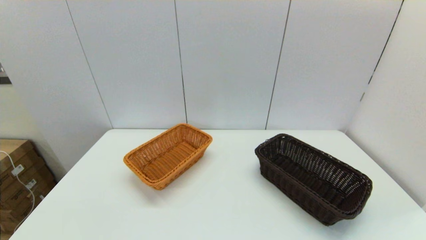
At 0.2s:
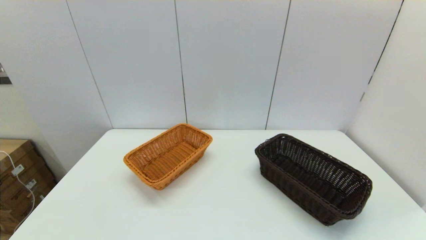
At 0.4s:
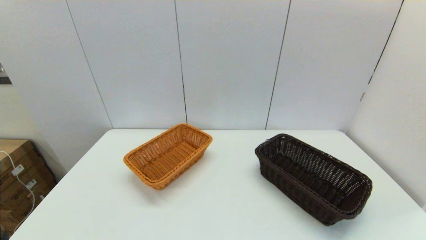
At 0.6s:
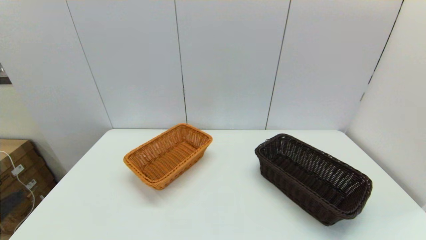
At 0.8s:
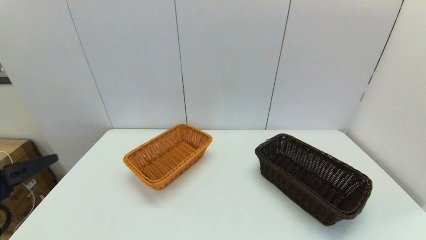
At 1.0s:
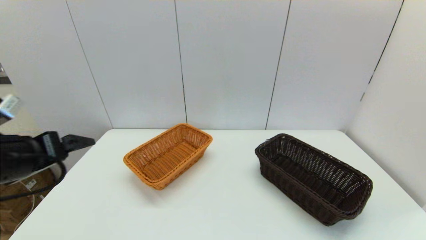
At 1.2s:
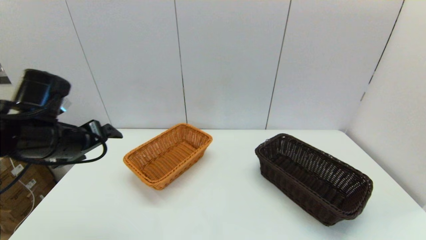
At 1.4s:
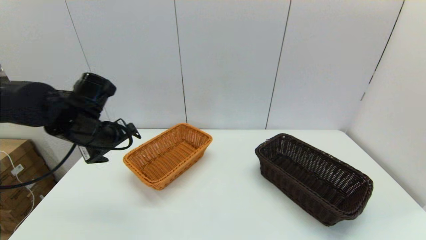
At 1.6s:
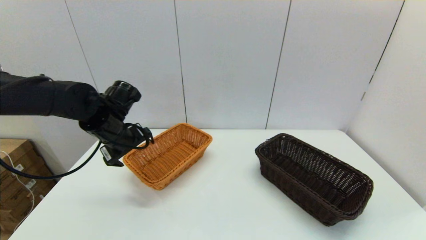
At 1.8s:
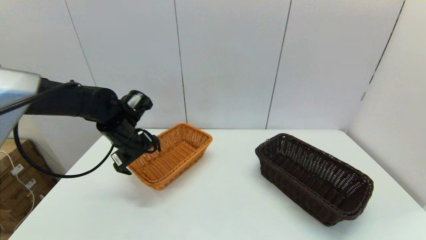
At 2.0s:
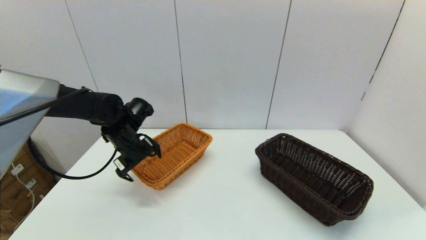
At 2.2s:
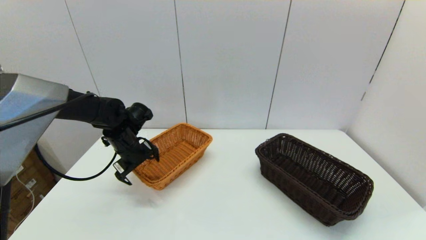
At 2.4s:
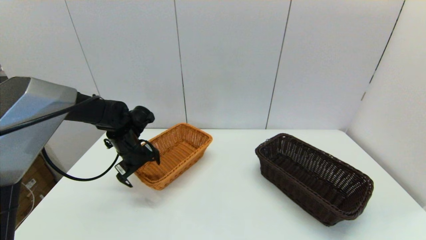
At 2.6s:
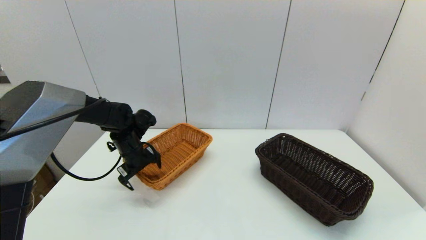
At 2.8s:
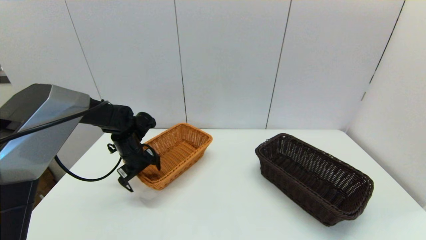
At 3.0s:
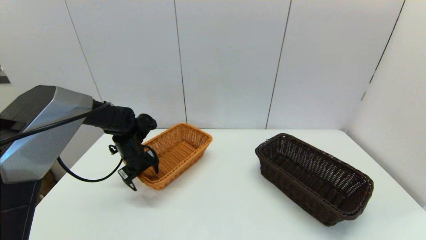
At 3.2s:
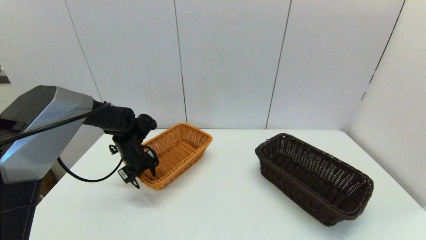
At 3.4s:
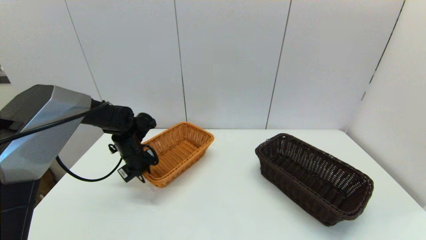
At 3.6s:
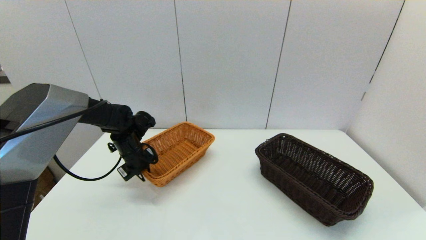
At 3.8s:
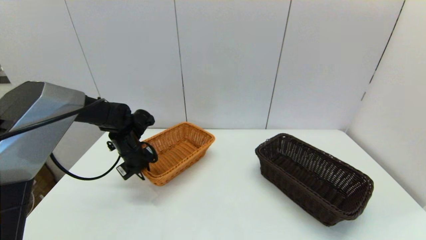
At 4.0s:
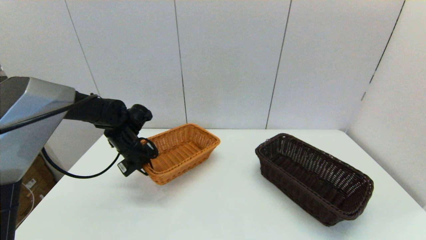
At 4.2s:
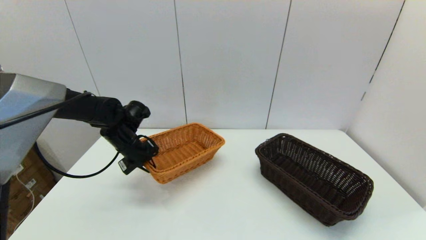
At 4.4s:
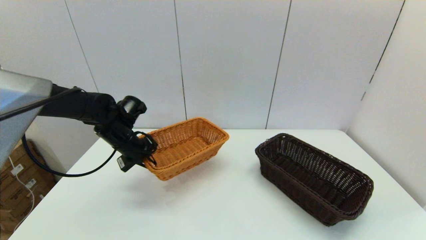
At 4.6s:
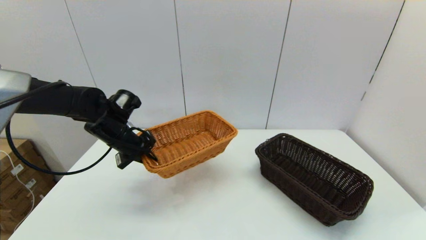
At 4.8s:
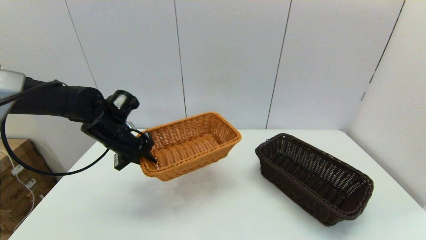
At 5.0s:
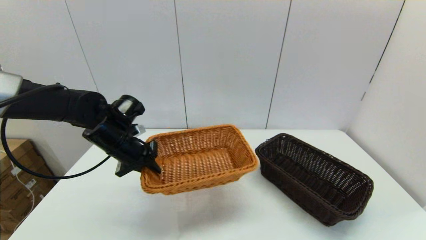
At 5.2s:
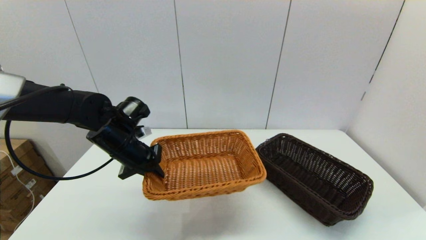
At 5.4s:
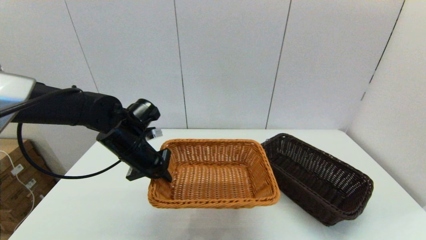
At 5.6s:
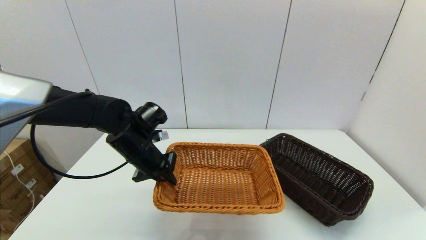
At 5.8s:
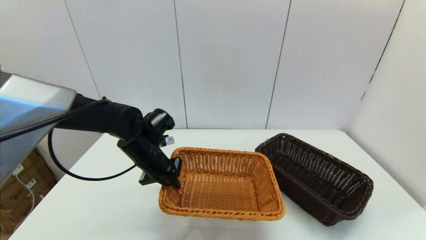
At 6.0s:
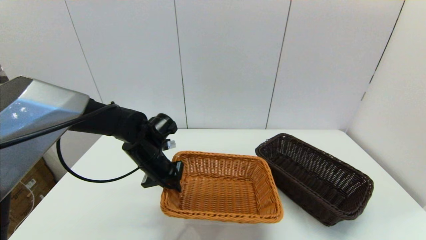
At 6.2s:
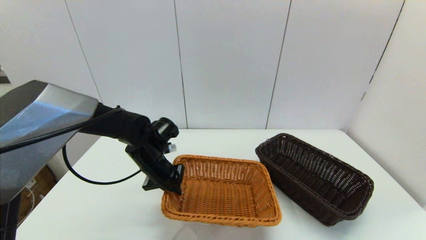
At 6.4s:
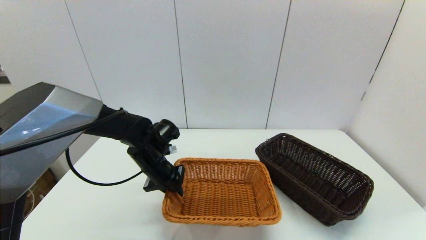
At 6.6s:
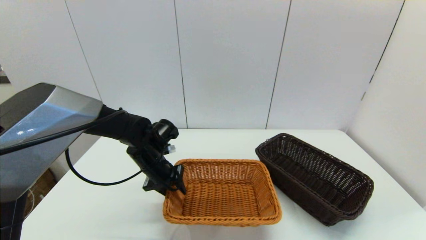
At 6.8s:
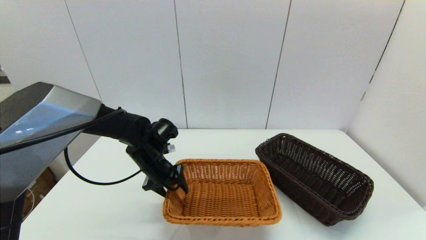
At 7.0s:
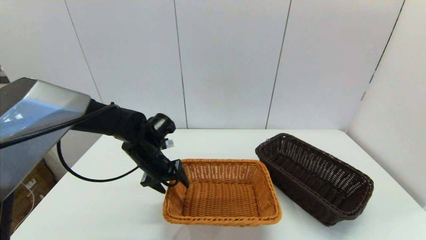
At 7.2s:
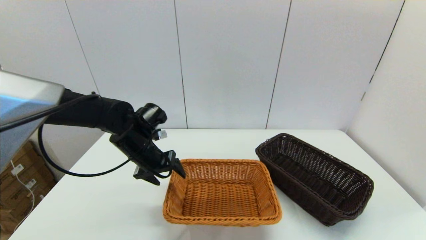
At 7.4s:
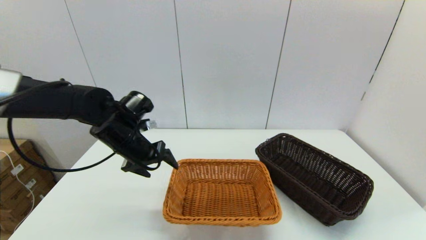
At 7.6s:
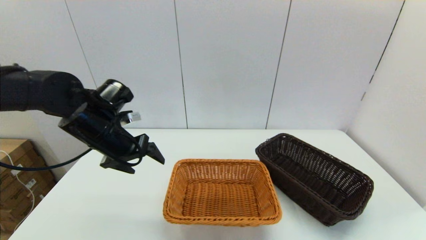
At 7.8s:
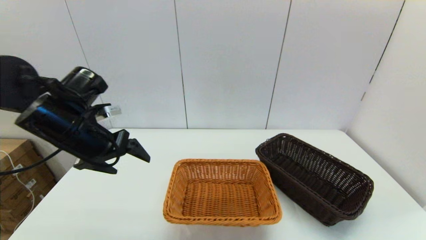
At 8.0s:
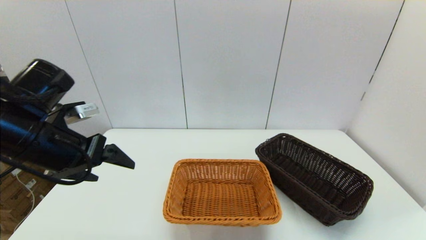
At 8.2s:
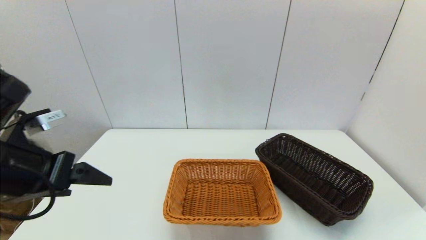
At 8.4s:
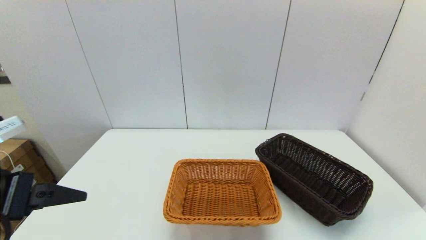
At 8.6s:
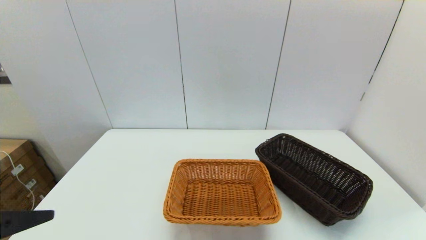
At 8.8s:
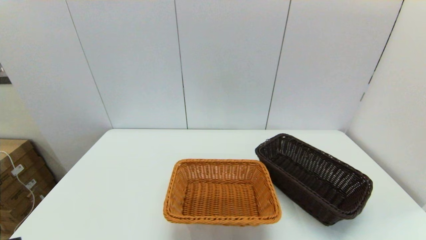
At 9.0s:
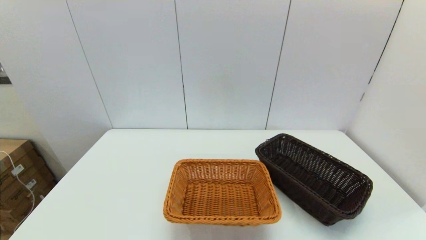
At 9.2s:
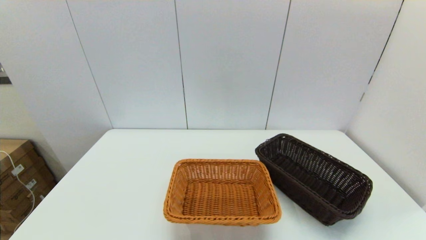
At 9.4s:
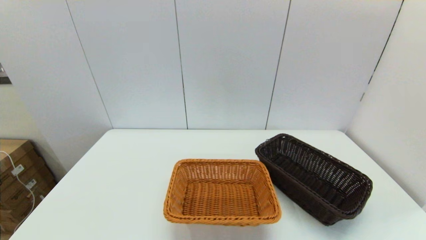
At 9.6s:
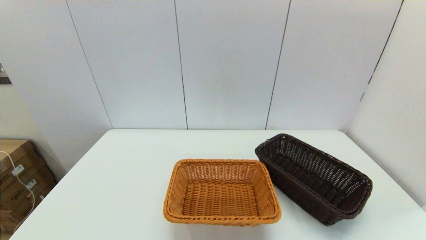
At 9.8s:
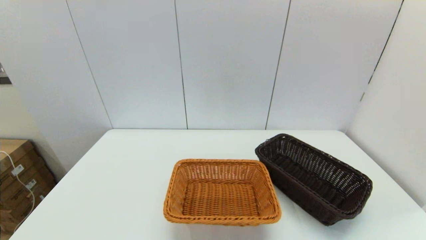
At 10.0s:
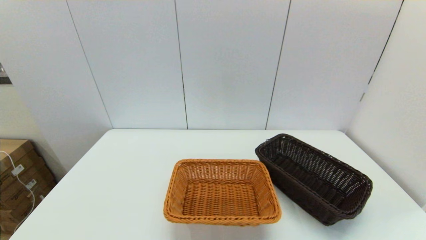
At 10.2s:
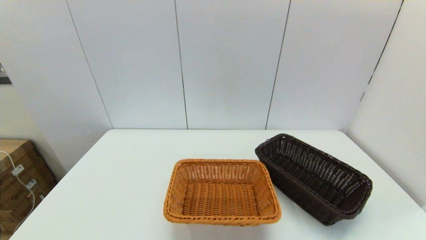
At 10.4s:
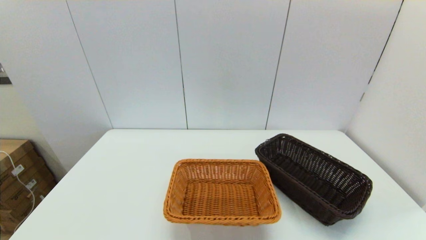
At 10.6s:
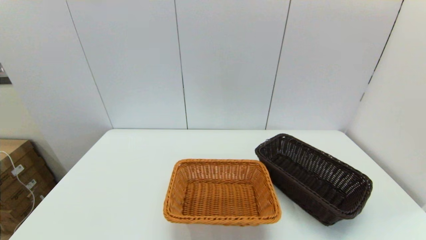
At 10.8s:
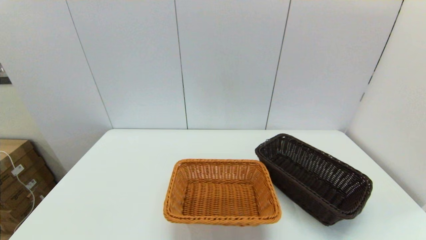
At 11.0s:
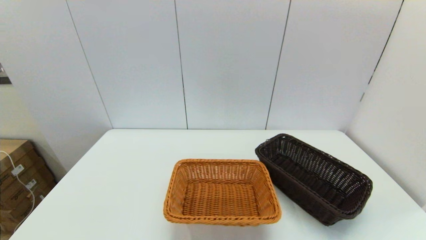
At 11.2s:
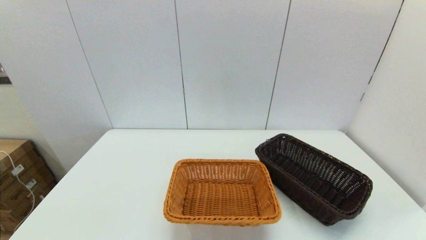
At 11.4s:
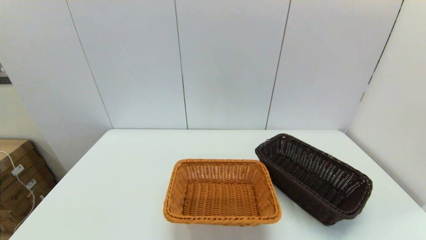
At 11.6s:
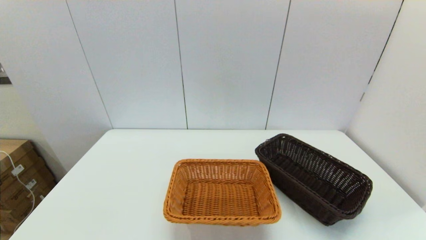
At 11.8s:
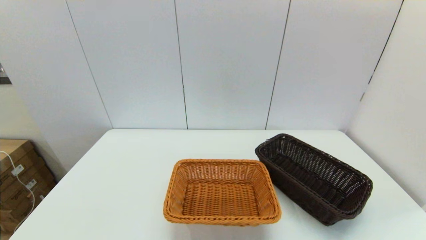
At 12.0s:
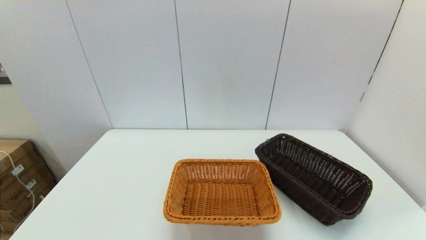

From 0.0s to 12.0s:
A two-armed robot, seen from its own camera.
Task of the whole recording: stack a basket on top of another basket.
Step, from 0.0s to 3.8s: Grasp the light basket with the left gripper.
Step, from 4.0s to 7.8s: Place the light basket on the middle of the table with the left gripper.
From 0.0s to 1.6s: The left gripper is displaced forward by approximately 35 cm.
From 1.6s to 3.0s: The left gripper shifts approximately 10 cm downward and forward.
From 3.0s to 4.4s: The left gripper shifts some 5 cm upward, and closes.
From 4.4s to 6.0s: The left gripper shifts roughly 10 cm to the right.
From 6.0s to 7.6s: The left gripper goes approximately 15 cm upward and to the left, and opens its fingers.
From 7.6s to 9.0s: The left gripper travels backward by roughly 30 cm.

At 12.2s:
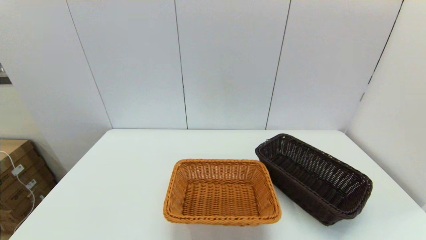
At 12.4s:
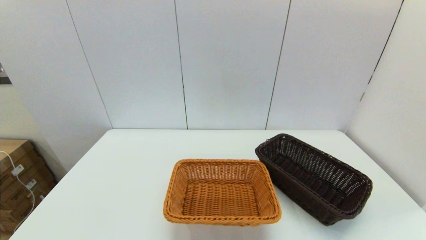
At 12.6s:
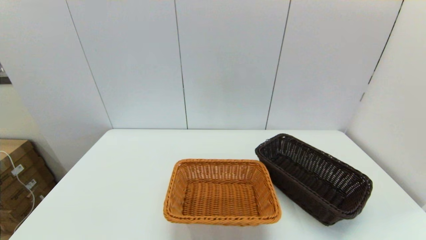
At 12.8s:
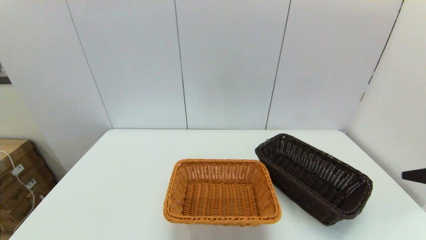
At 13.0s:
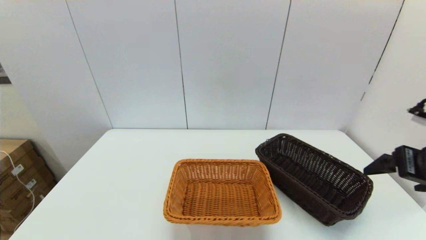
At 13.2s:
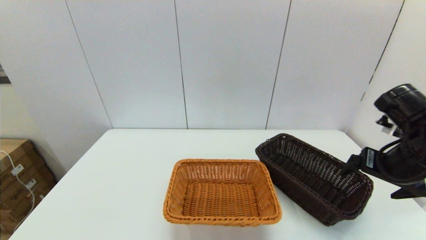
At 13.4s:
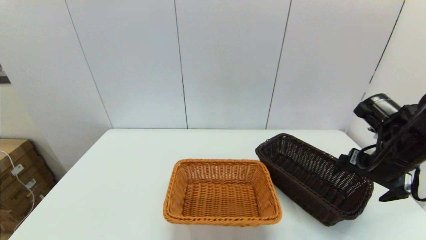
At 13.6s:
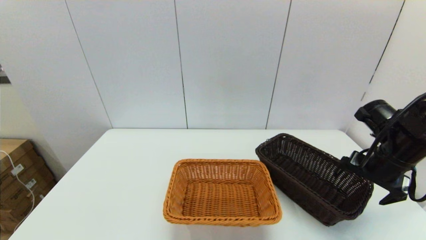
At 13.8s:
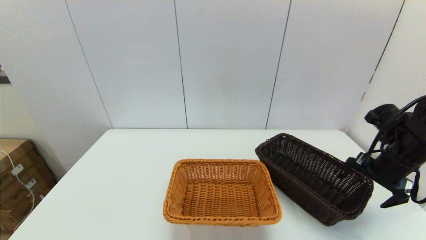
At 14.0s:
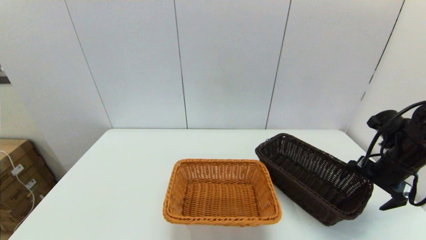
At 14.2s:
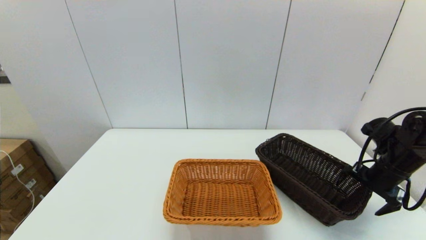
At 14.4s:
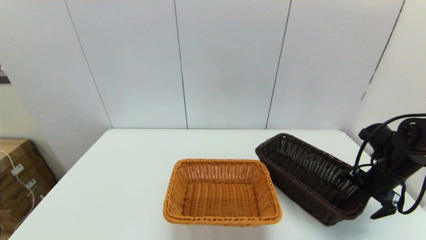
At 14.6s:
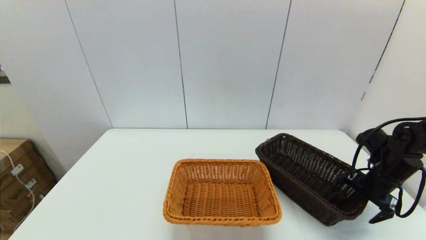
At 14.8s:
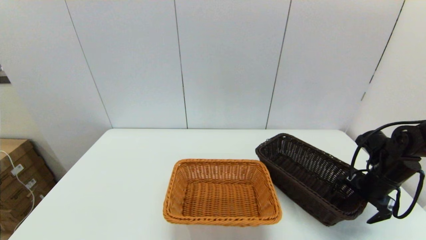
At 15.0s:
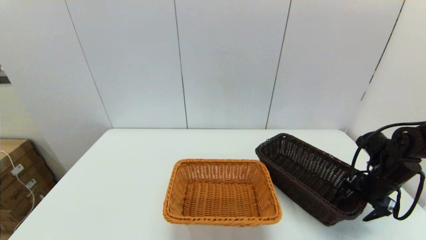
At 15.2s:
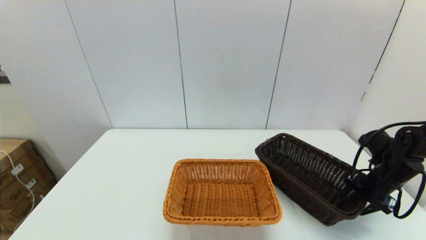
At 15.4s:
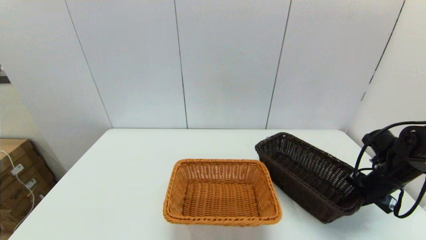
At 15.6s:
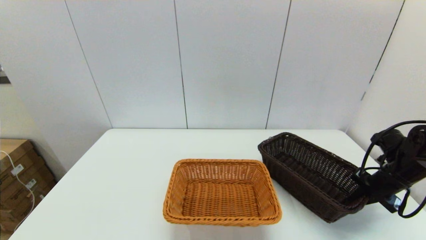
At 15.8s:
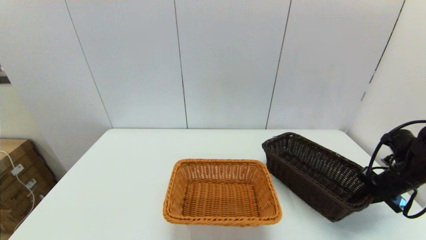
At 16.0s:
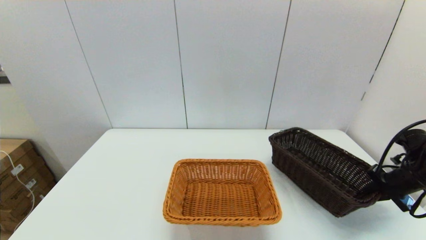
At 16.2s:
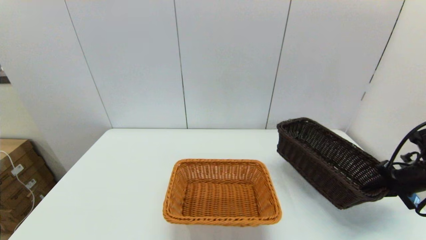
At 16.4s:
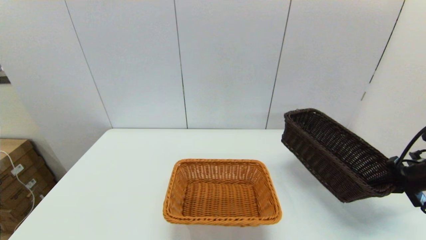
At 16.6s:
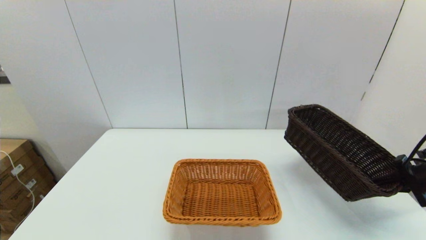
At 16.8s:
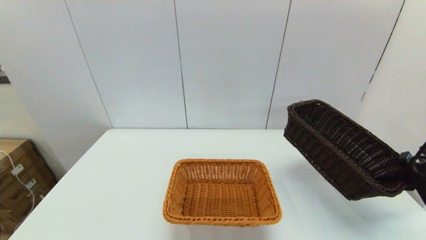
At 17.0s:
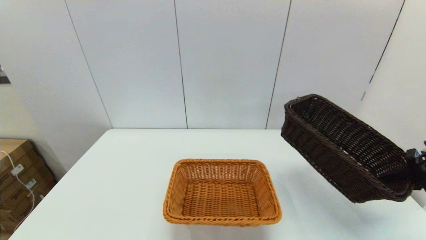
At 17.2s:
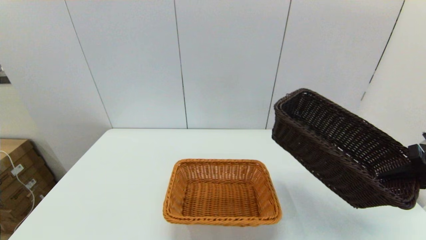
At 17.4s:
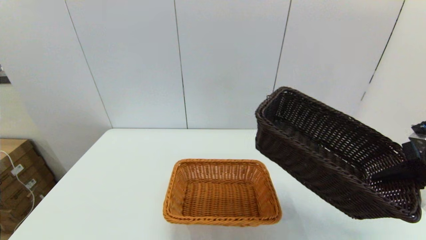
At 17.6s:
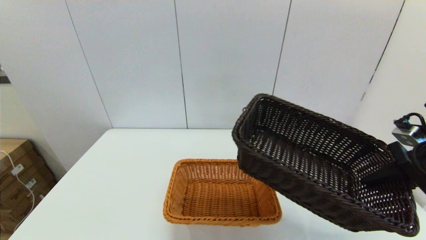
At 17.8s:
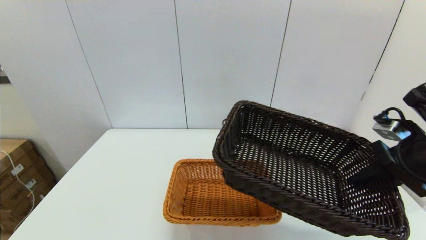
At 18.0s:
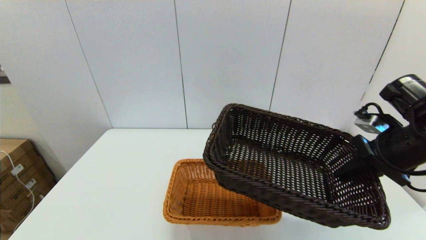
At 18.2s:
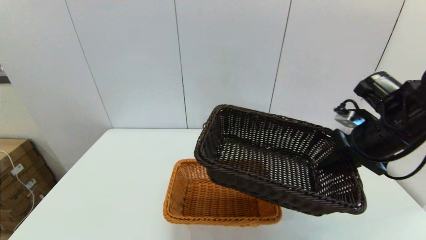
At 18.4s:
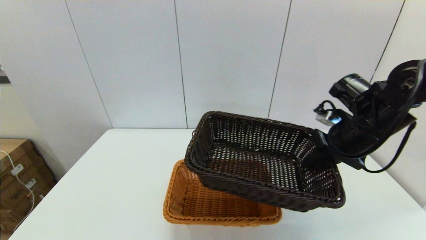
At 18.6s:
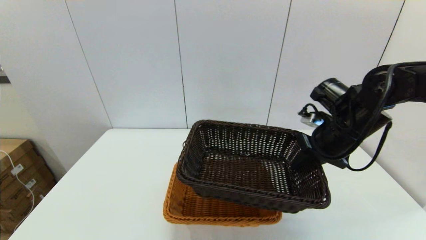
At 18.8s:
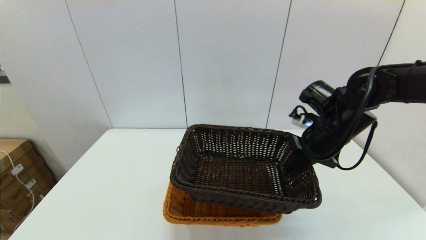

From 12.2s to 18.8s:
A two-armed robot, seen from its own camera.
Task of the whole recording: stack a basket on top of another basket.
Step, from 12.2s to 15.2s: Grasp the dark basket with the right gripper.
From 12.2s to 13.8s: The right gripper moves forward, about 30 cm.
From 13.8s to 15.4s: The right gripper shifts approximately 5 cm downward, and closes up.
From 15.4s to 17.2s: The right gripper travels upward and backward by some 15 cm.
From 17.2s to 18.8s: The right gripper heads to the left and forward, covering approximately 20 cm.
